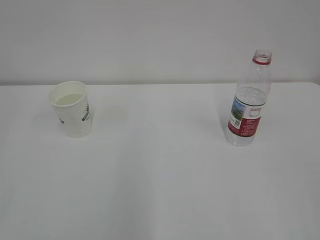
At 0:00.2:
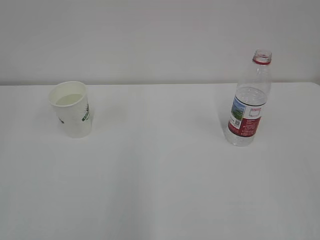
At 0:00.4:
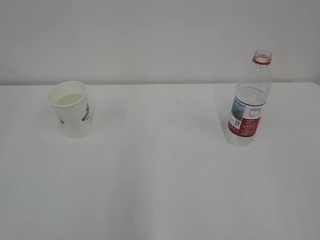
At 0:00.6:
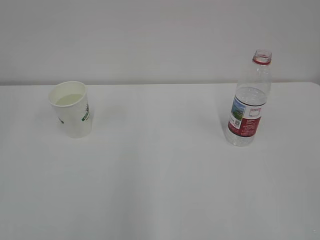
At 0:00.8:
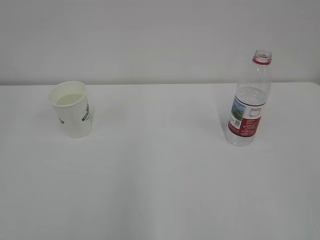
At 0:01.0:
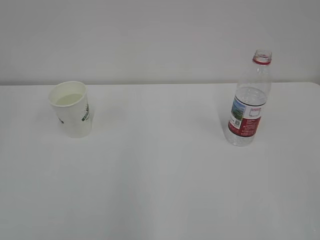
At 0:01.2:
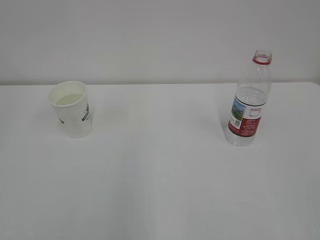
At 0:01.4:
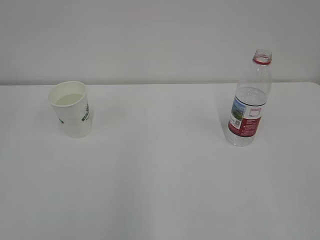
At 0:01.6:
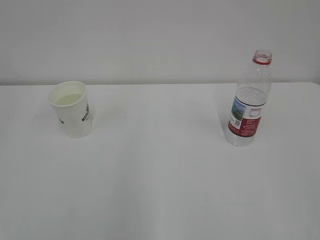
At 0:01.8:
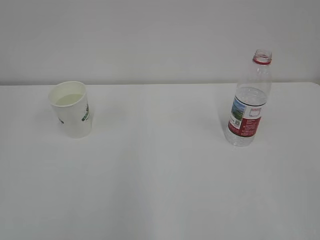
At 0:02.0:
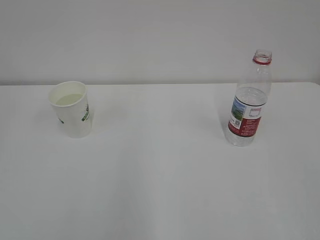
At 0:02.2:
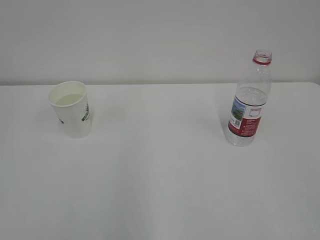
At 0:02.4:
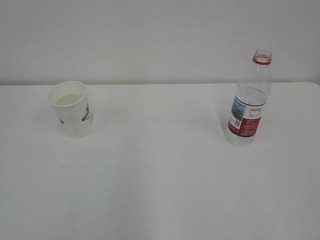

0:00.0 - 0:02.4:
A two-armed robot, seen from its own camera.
0:01.2 - 0:02.4: The two grippers keep their place.
